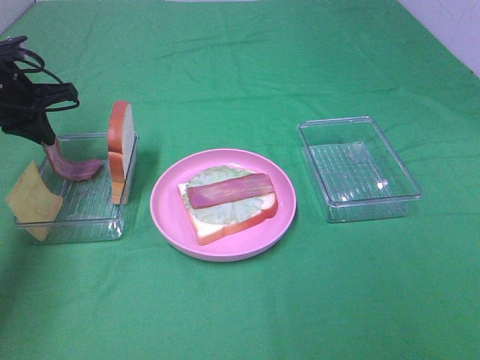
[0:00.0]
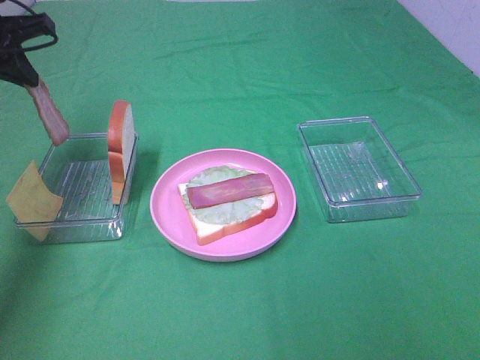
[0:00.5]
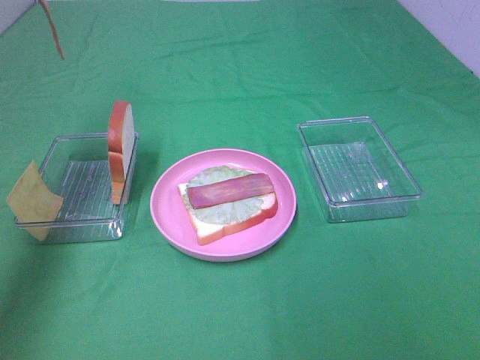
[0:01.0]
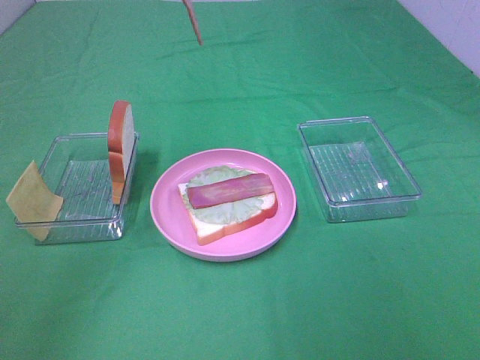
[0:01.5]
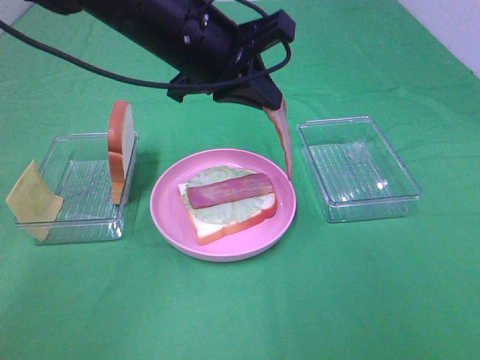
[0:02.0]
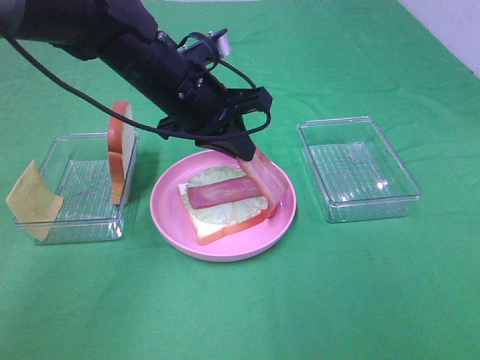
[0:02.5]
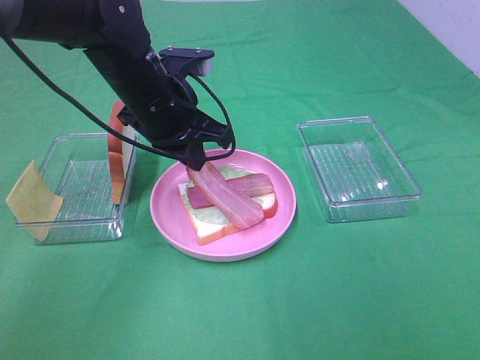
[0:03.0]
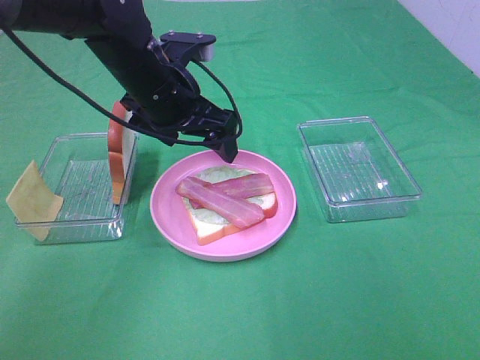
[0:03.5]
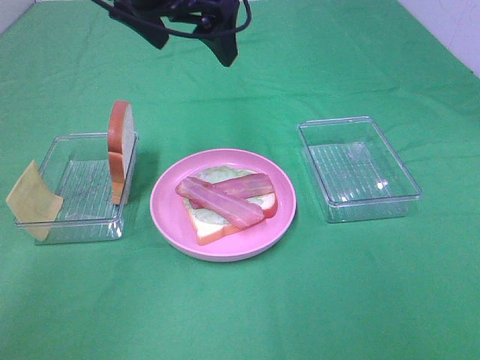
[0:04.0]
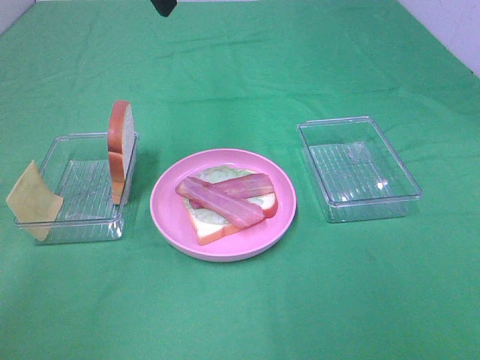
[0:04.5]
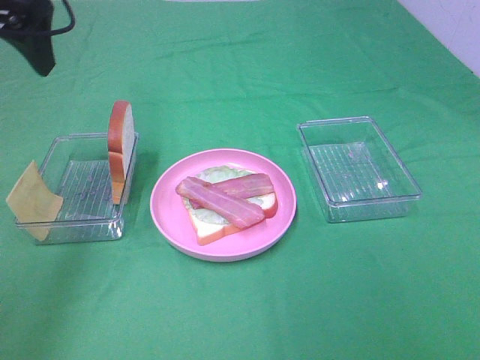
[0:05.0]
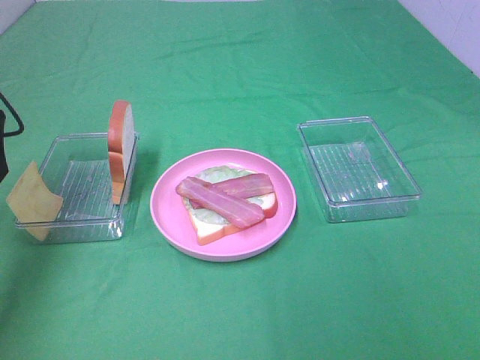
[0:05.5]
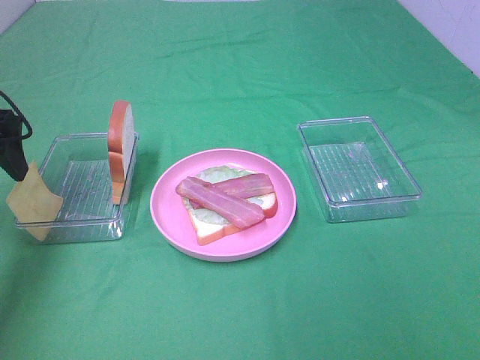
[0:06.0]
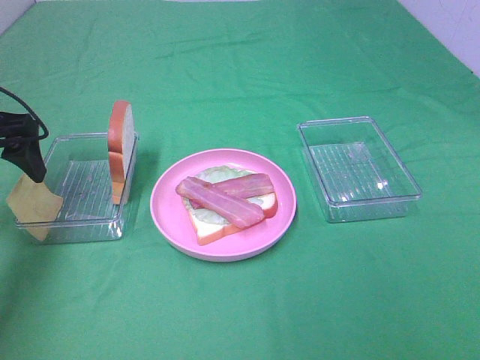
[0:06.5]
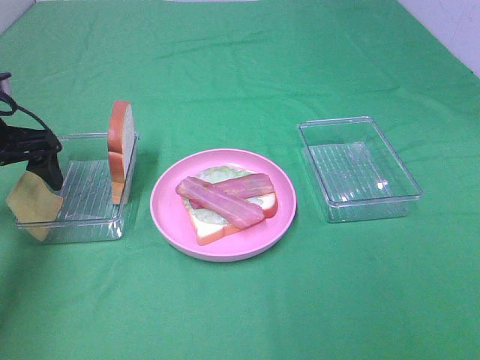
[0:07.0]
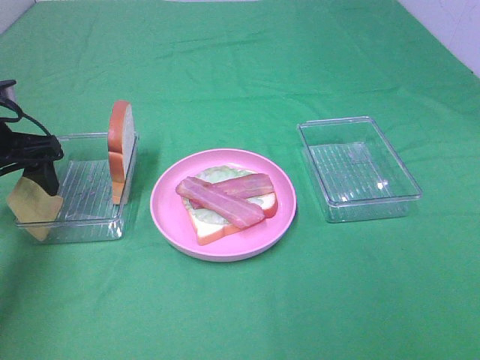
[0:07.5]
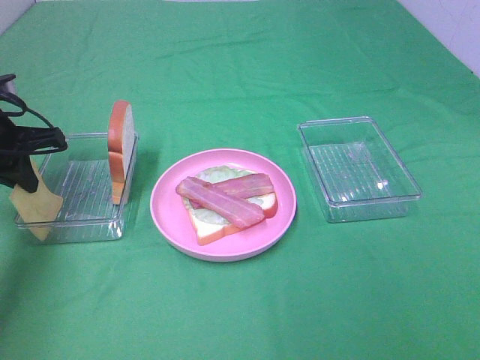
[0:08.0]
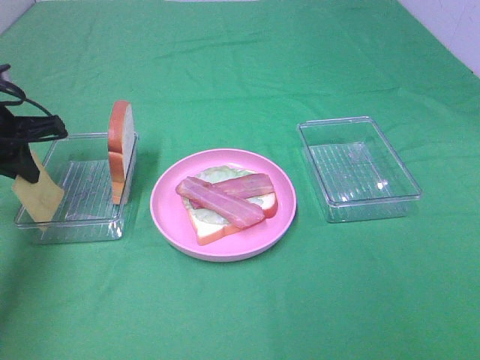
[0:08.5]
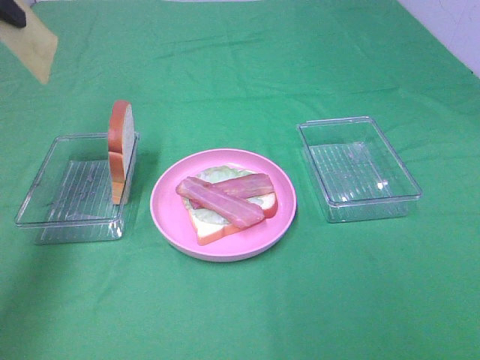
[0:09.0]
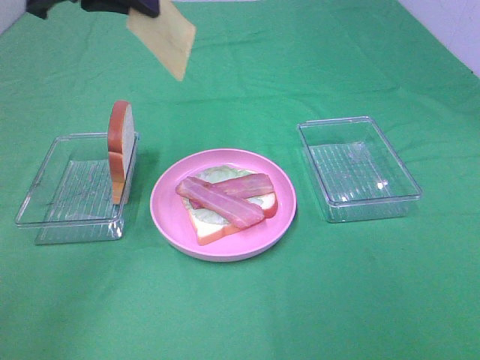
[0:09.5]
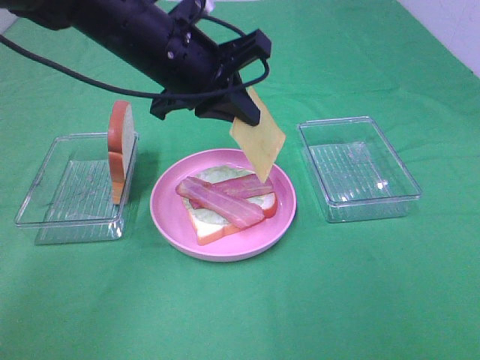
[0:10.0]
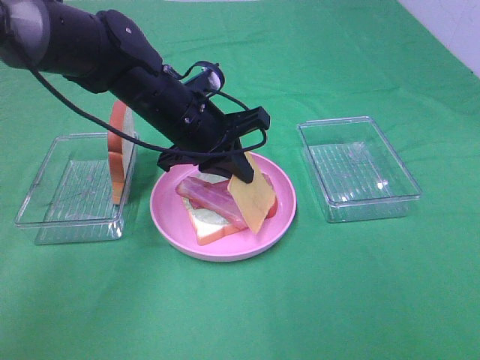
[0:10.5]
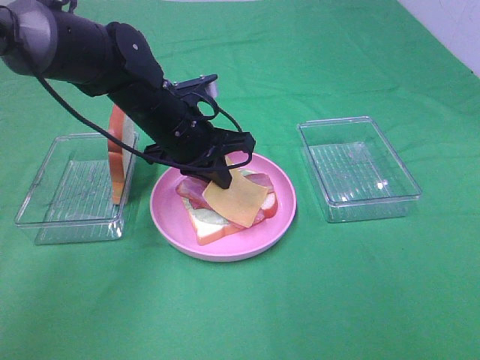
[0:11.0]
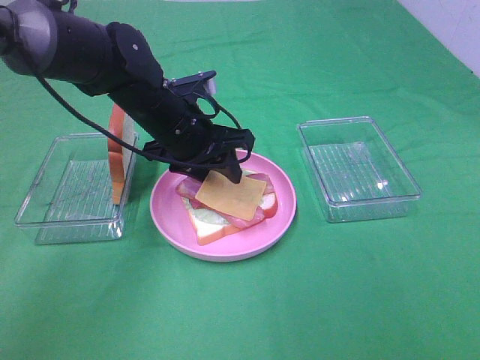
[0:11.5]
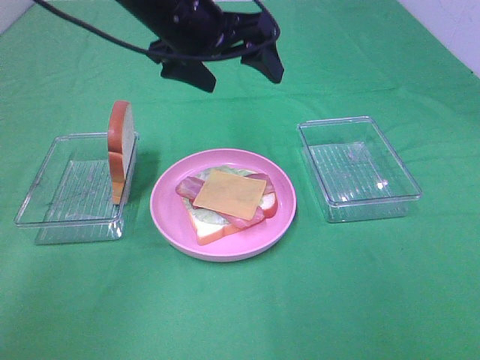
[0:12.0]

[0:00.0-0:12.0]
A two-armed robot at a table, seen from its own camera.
Task of the whole recording: Make sandwiches.
Step, 0:00.0 to 0:03.0: Left hand:place bacon on bacon.
Step, 0:03.5 to 0:08.0: Left hand:grab the cheese slice.
Step, 0:08.5 to 0:11.5: Left hand:place the cheese slice on top of the bacon.
0:00.0 to 0:02.0: The left gripper shifts about 25 cm to the right.
0:02.0 to 0:04.0: The left gripper travels upward by about 10 cm, and opens its fingers.
0:04.0 to 0:06.0: The left gripper moves to the left and downward, approximately 25 cm.
0:06.0 to 0:08.0: The left gripper moves downward, roughly 5 cm, and closes up.
0:08.0 to 0:10.0: The left gripper heads to the right, covering about 25 cm.
0:10.0 to 0:12.0: The left gripper ends up roughly 5 cm from where it was, and opens its fingers.

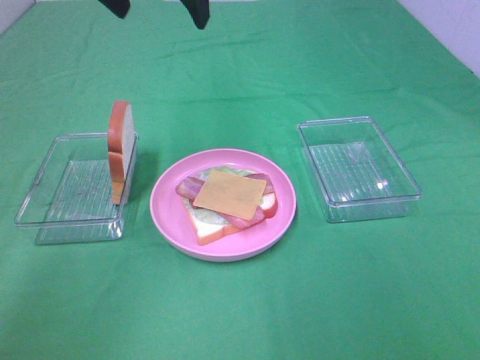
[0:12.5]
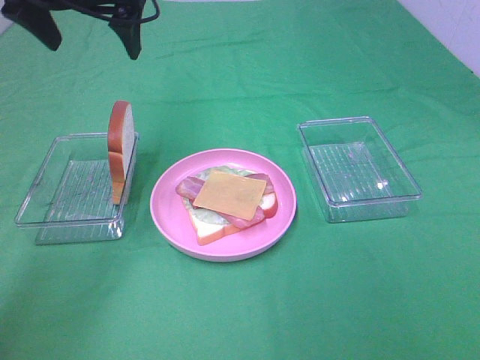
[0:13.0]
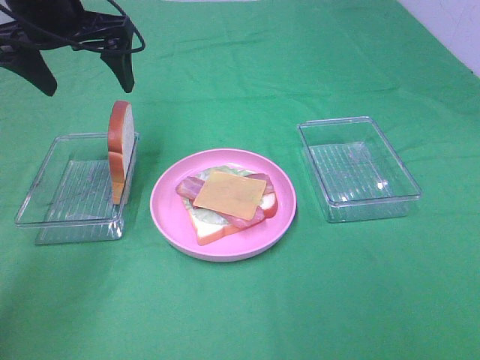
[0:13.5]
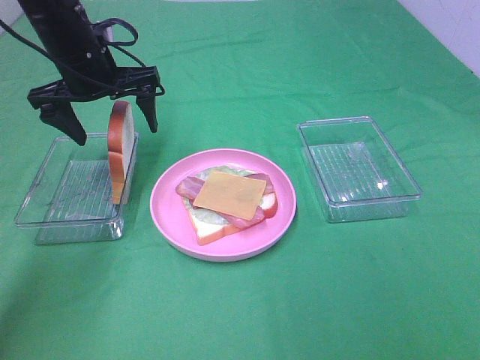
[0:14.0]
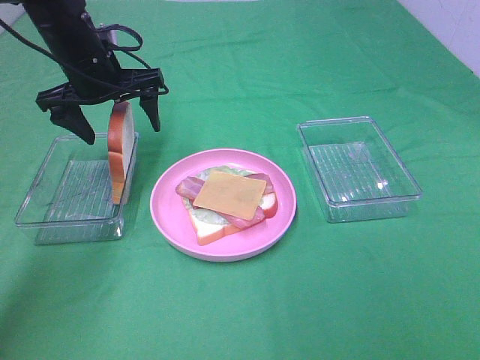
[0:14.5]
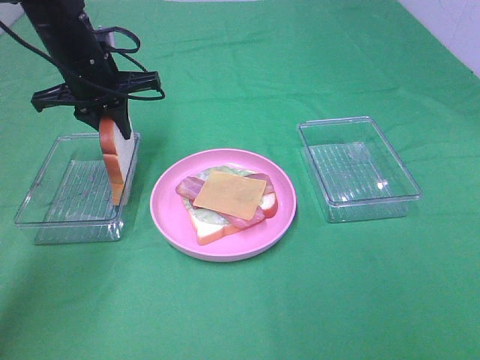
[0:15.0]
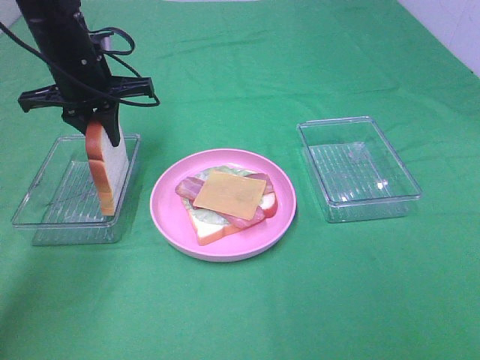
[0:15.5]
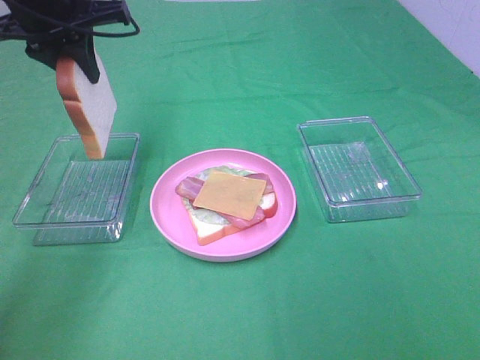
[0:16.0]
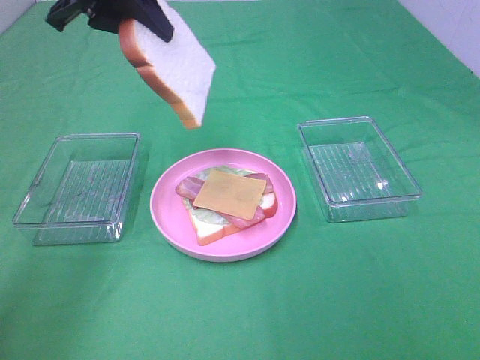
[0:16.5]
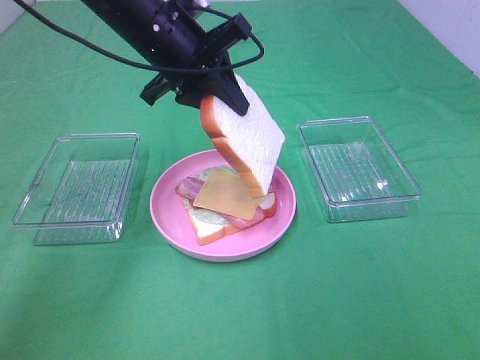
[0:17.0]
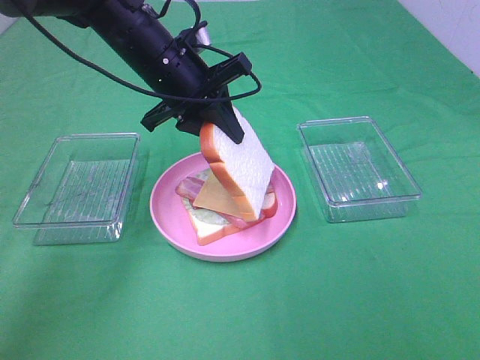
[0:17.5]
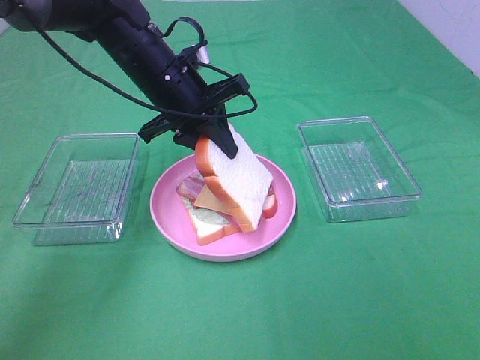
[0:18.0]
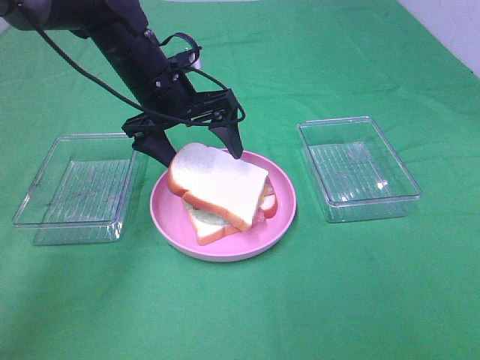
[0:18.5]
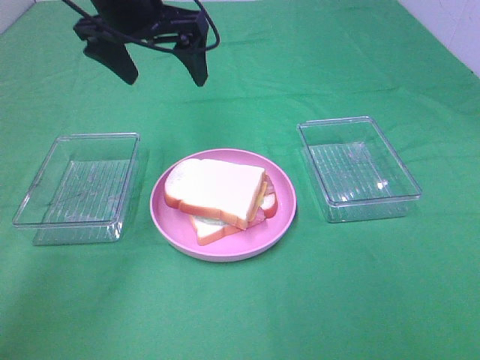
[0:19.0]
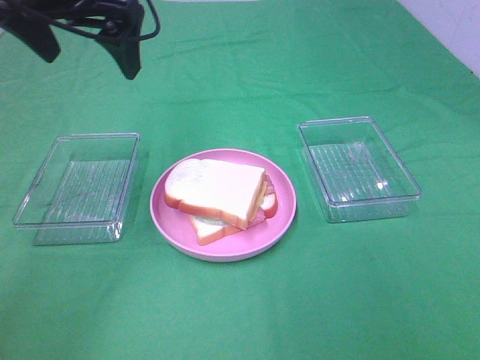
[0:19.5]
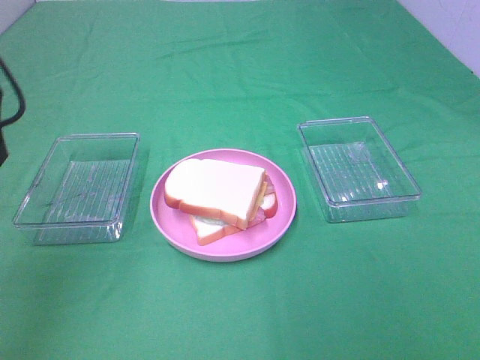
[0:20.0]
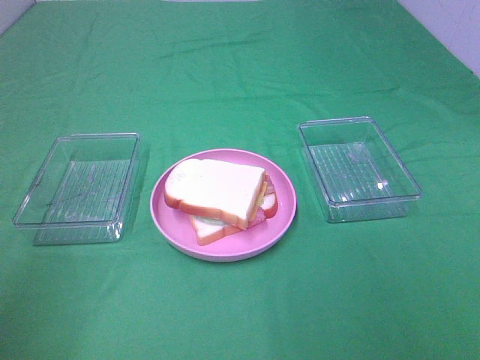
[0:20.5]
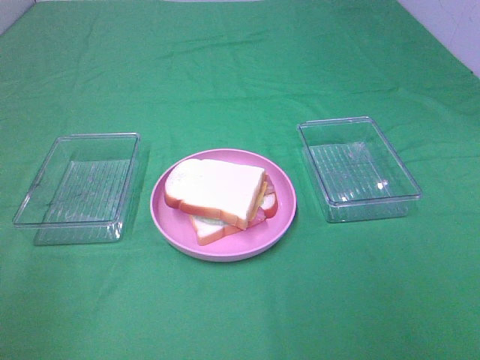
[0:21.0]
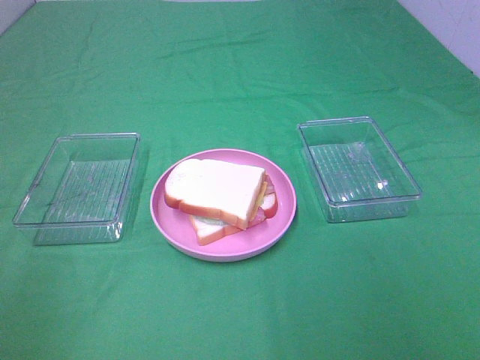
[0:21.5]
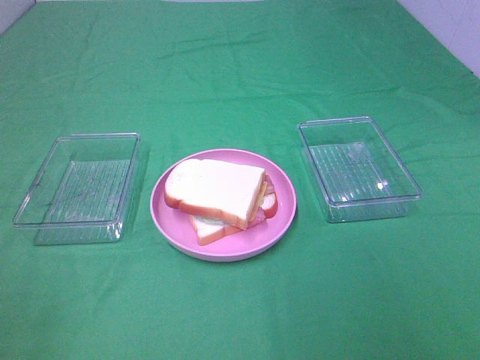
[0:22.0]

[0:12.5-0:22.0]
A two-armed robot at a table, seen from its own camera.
Task of the whole recording: Make sandwiches.
Step, 0:12.5 to 0:15.0: Left hand:grab the bread slice.
Step, 0:15.5 to 0:18.5: Left hand:place the bread slice on the cheese slice.
0:12.5 to 0:14.5: The left gripper moves downward and to the left, some 20 cm.
0:14.5 to 0:16.5: The left gripper shifts some 15 cm upward, and closes.
0:16.5 to 0:18.0: The left gripper goes about 15 cm downward and to the right.
0:18.0 to 0:20.0: The left gripper heads backward, to the left and upward, covering some 30 cm, and opens.
0:20.0 to 0:22.0: The left gripper is displaced backward by about 25 cm.

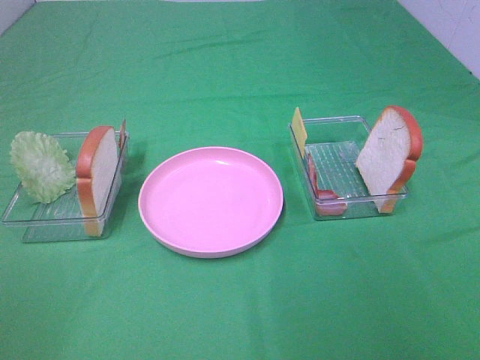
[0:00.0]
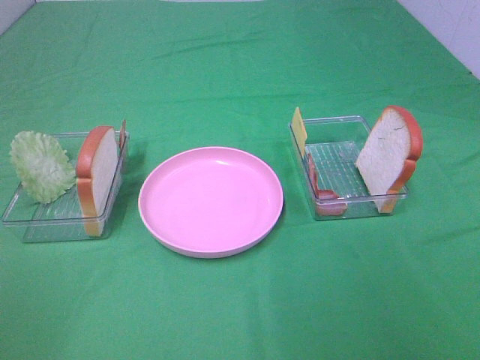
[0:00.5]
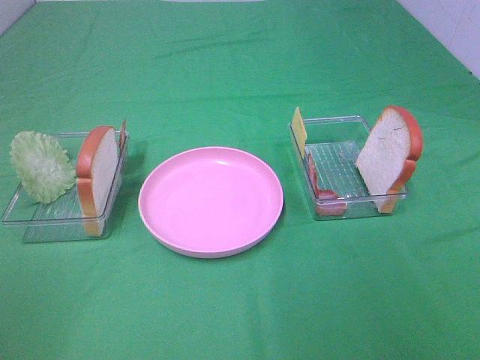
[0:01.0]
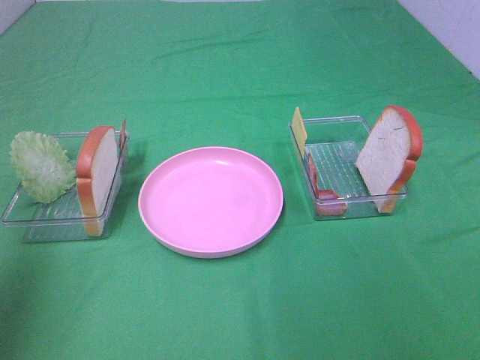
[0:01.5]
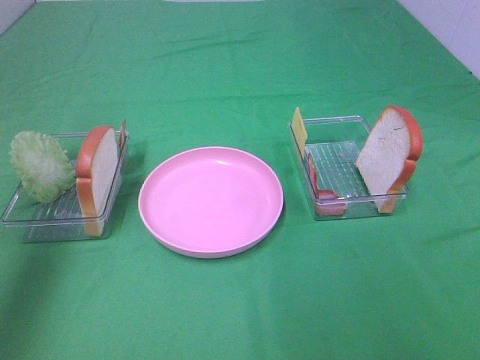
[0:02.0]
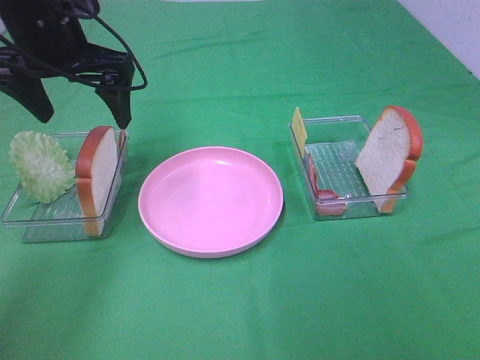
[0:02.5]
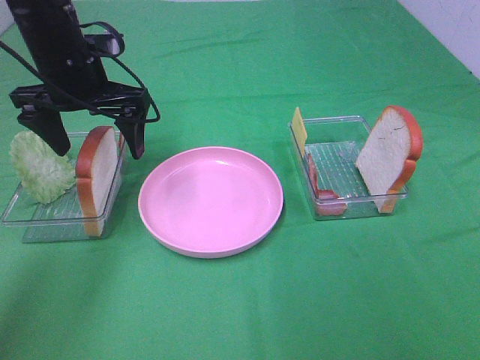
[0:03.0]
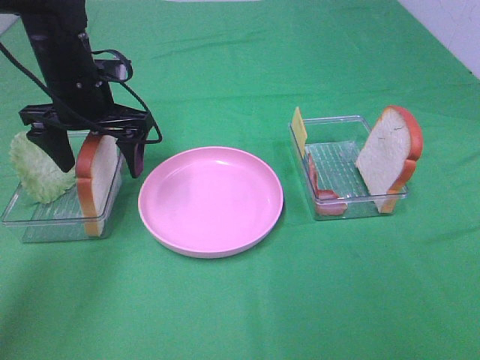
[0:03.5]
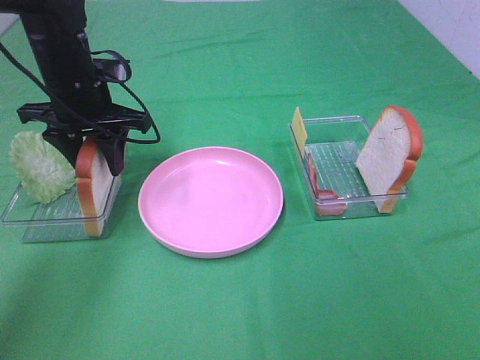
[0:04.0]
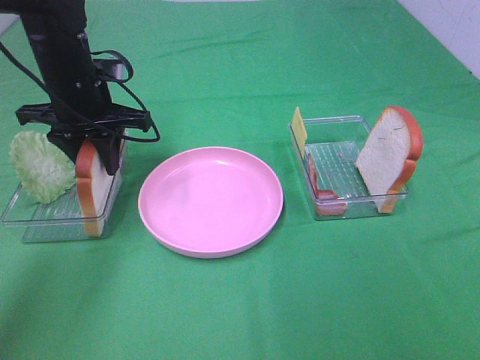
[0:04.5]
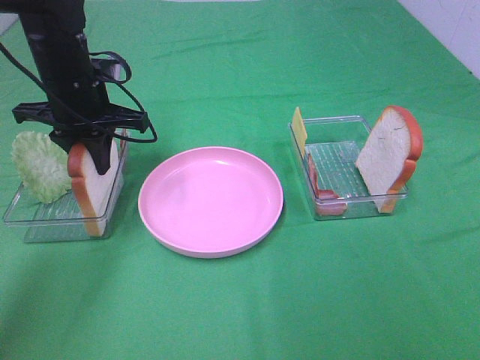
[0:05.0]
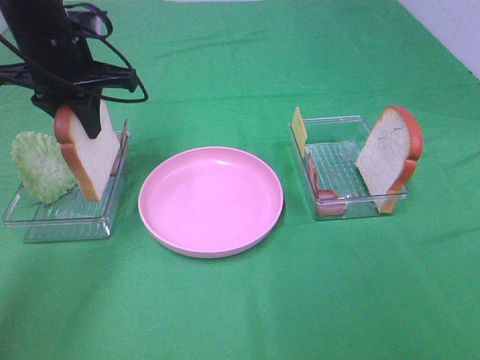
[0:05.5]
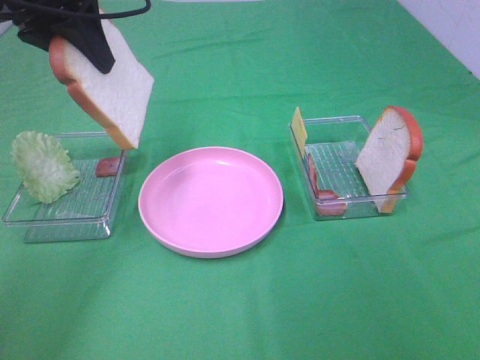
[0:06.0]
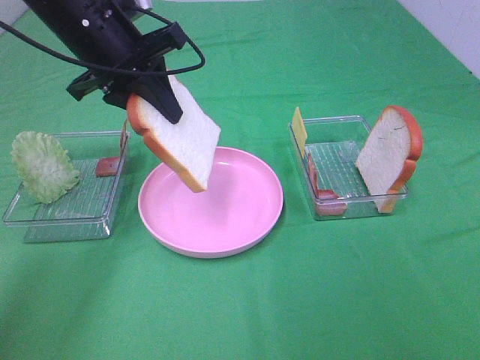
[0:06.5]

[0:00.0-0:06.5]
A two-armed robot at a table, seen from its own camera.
Task of the whole recording: Make sandwiches.
Step, 0:00.0 to 0:04.5: Left hand:grab the bread slice.
0:00.0 to 0:02.0: The left gripper heads forward, covering about 30 cm.
0:02.0 to 0:04.5: The left gripper is displaced downward, to the right and forward by some 20 cm, and closes.
0:04.5 to 0:06.5: The left gripper is displaced upward by roughly 5 cm.
